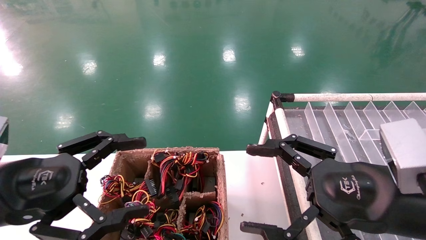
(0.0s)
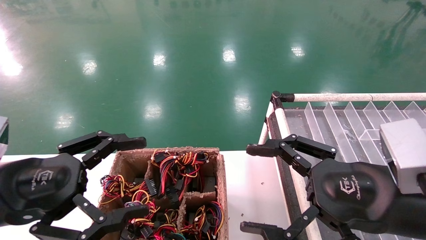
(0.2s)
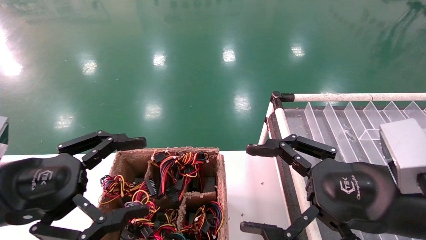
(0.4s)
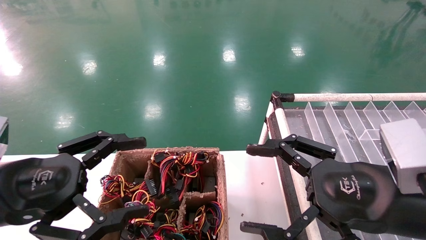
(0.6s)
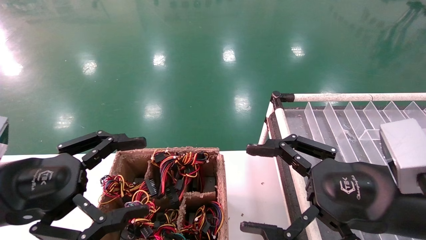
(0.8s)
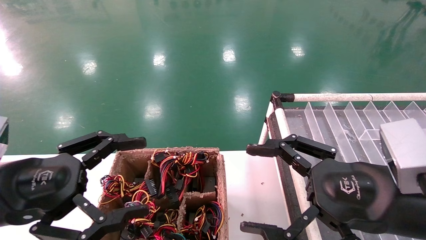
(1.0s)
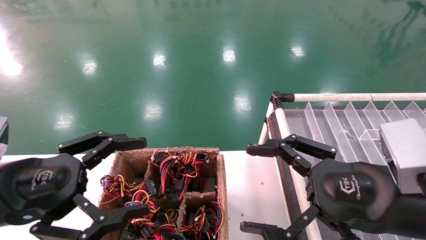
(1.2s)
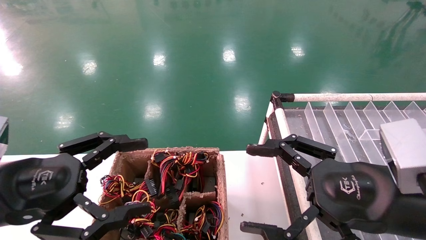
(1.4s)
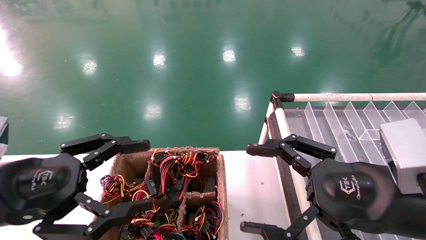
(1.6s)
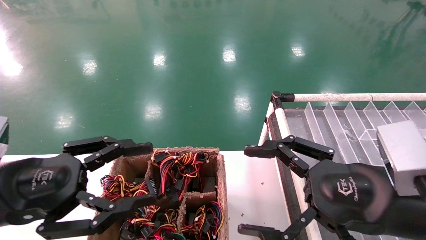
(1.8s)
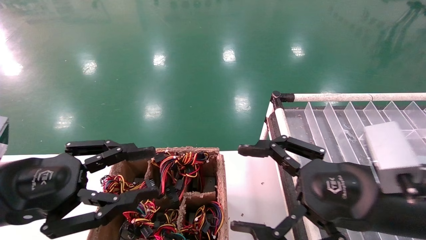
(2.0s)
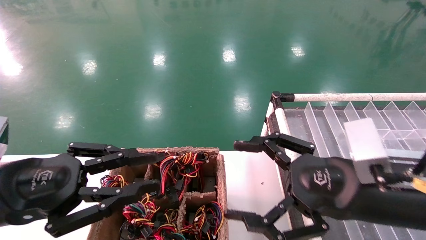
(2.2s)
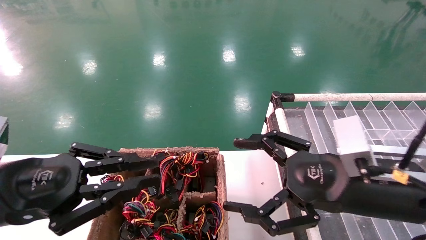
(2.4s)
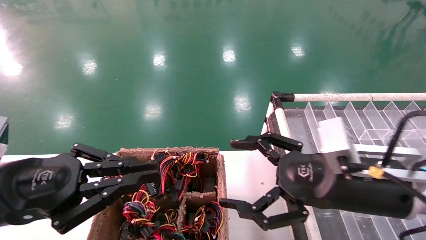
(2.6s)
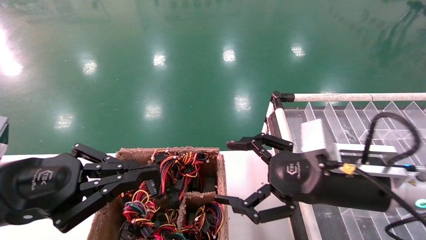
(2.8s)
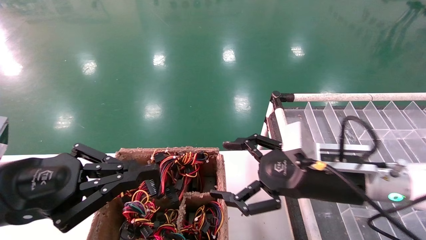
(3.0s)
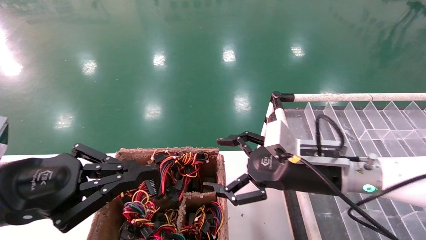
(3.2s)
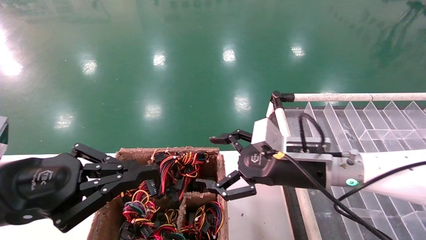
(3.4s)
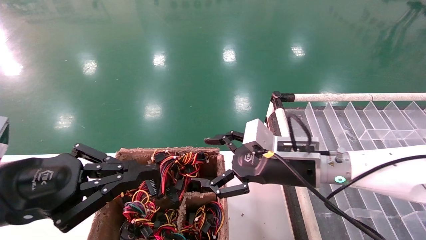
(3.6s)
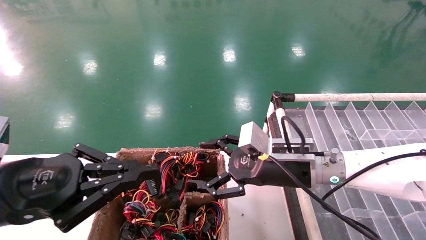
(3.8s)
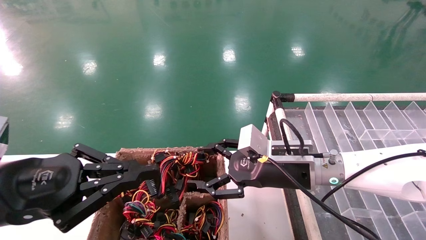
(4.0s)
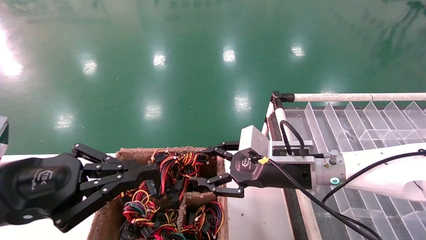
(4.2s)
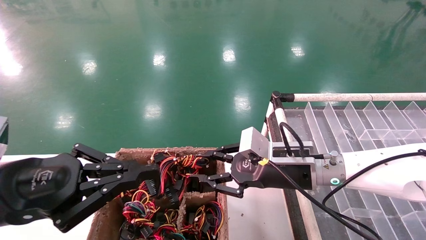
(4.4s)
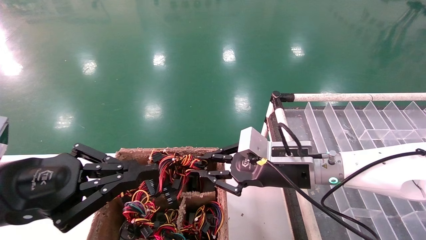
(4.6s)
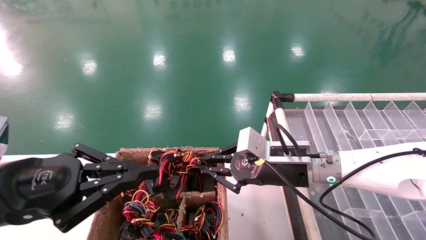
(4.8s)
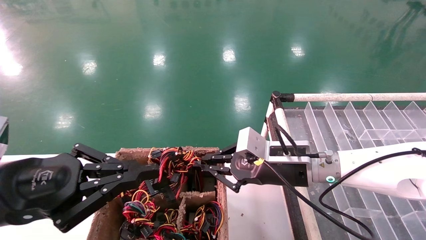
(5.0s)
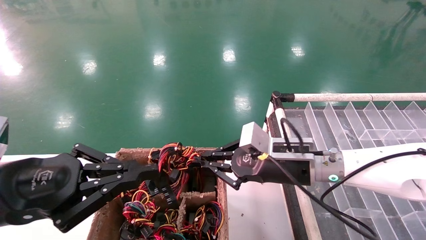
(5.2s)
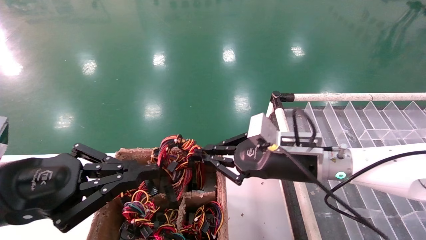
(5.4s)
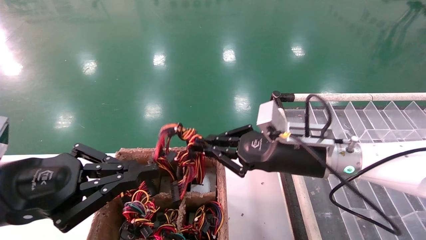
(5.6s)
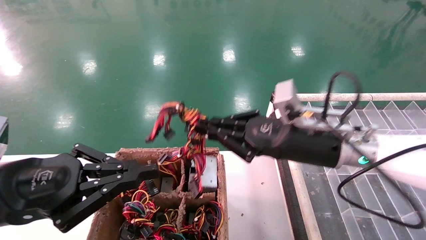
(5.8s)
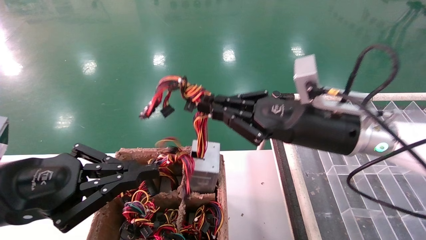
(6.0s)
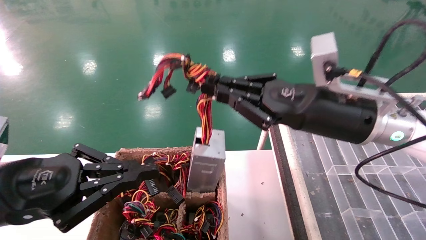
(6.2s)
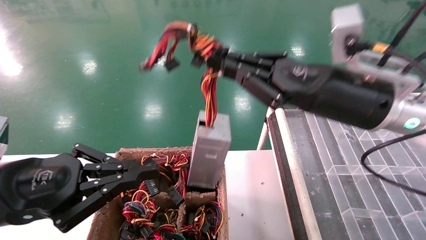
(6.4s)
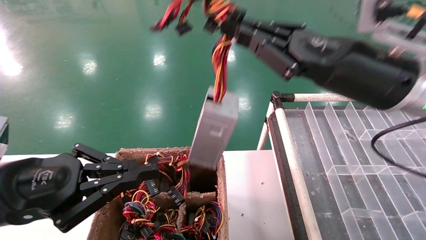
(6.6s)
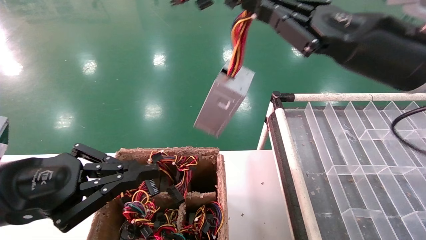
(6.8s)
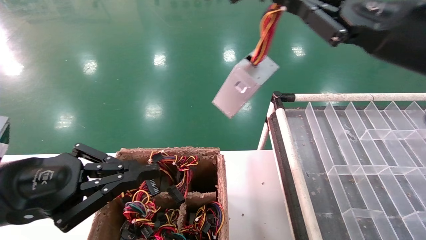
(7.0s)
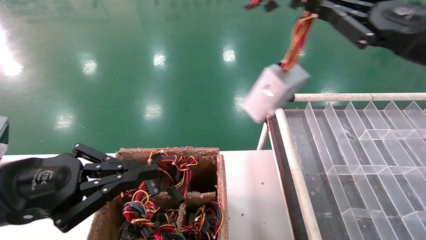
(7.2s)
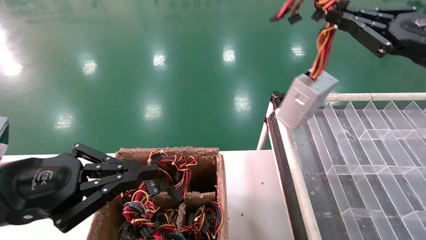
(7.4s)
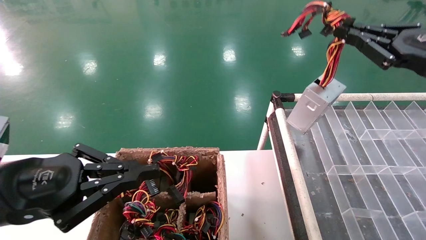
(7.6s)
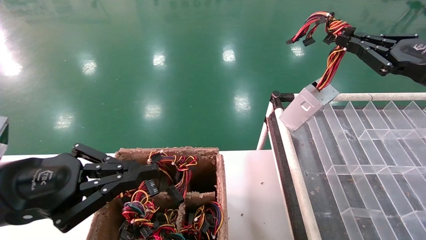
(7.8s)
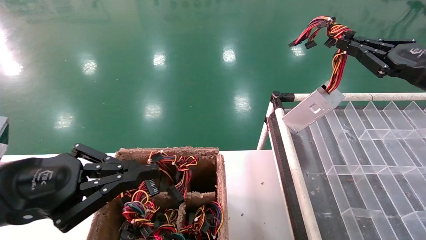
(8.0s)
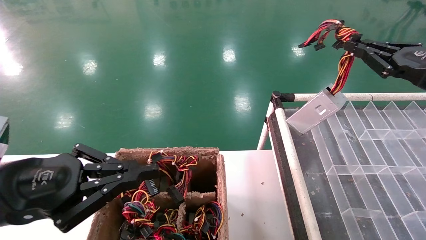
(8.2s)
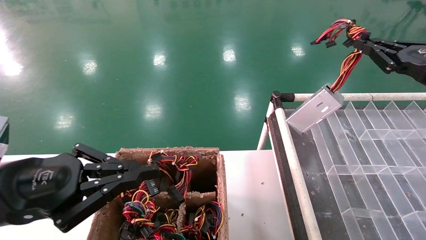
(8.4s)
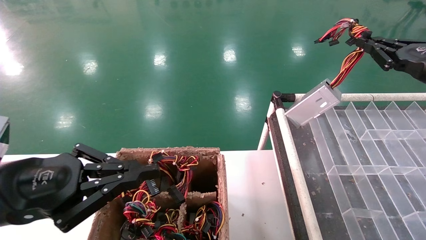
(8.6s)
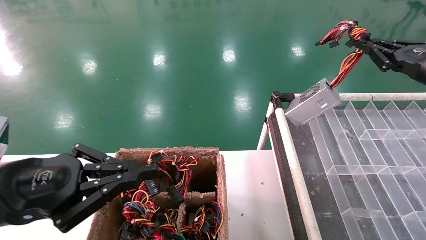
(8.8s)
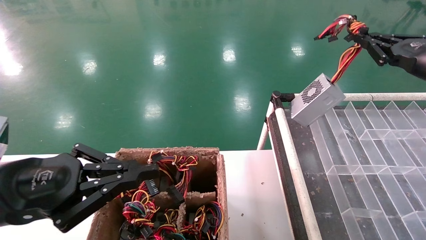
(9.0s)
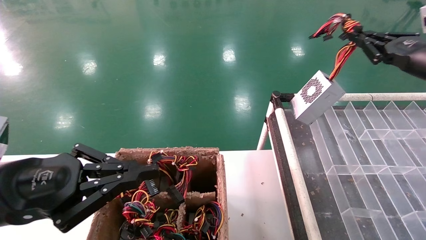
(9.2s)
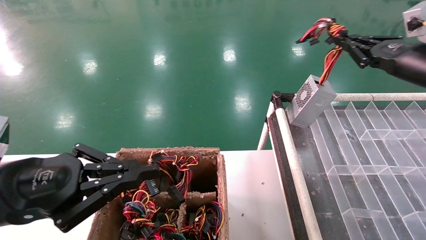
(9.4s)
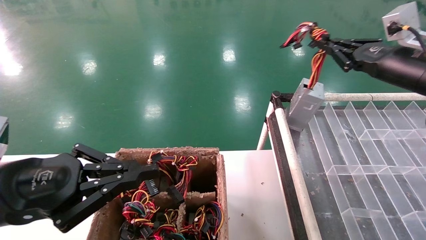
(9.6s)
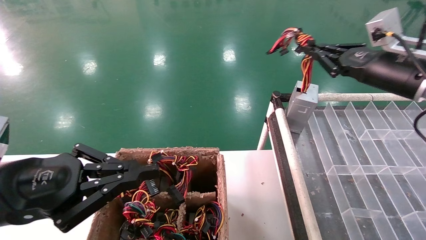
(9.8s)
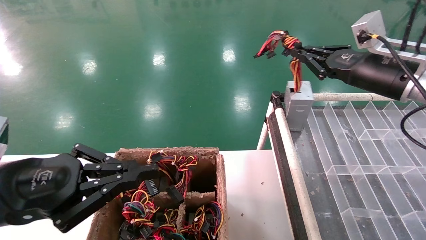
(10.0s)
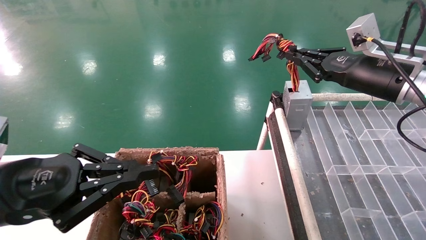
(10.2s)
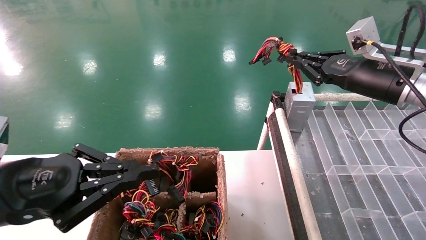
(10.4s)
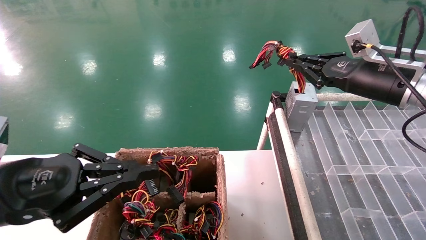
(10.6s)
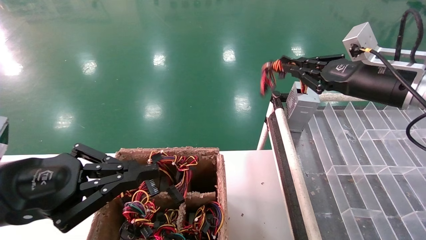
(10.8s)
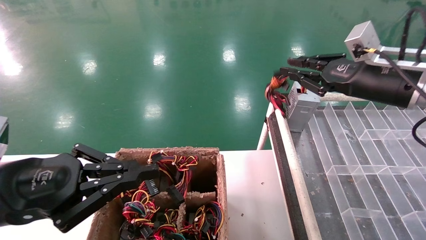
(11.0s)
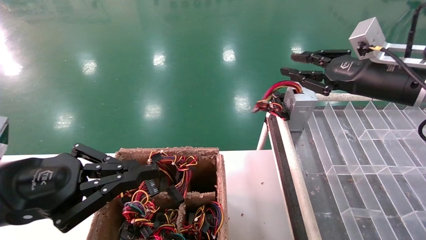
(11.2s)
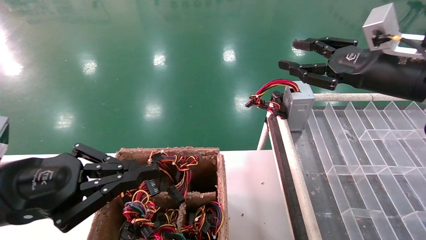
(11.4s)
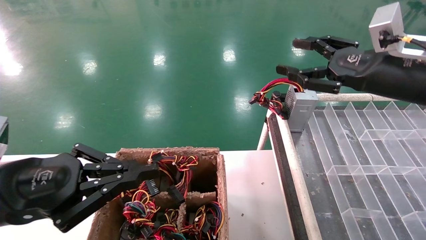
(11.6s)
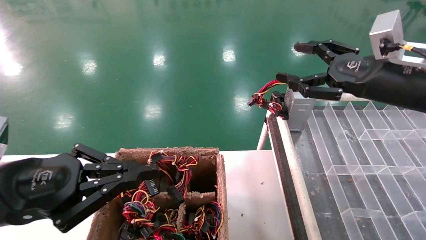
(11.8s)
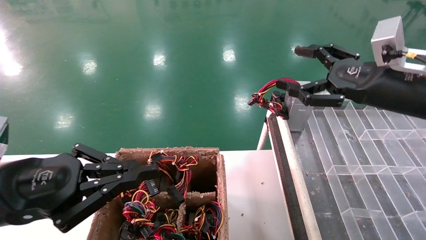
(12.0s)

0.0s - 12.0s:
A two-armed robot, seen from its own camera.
Step, 2.2s - 4.8s: Grab the main unit power supply from the containment box.
Step, 5.0s - 11.2s: Place the main unit power supply in the designated area.
0.0s - 1.6s: Neither gripper changes place.
1.6s - 3.0s: The left gripper closes up. Meanwhile the right gripper travels forward by roughly 10 cm.
3.0s - 4.4s: The right gripper travels forward by some 5 cm, and closes its fingers.
4.4s - 6.0s: The right gripper shifts about 10 cm upward, and closes up.
6.0s - 7.6s: The right gripper is displaced to the right and upward by about 20 cm.
7.6s - 9.0s: The right gripper moves forward and to the right, roughly 10 cm.
9.0s - 10.4s: The right gripper goes roughly 10 cm to the left.
10.4s - 12.0s: The right gripper moves backward, some 5 cm, and opens its fingers.

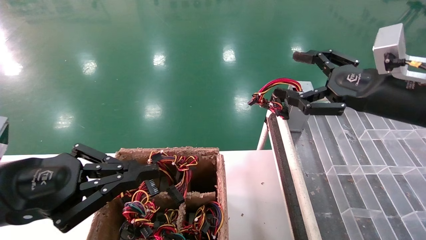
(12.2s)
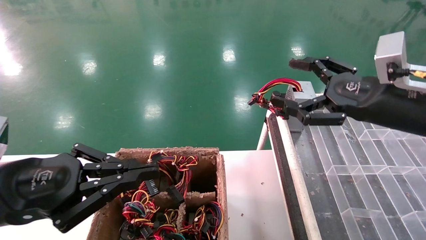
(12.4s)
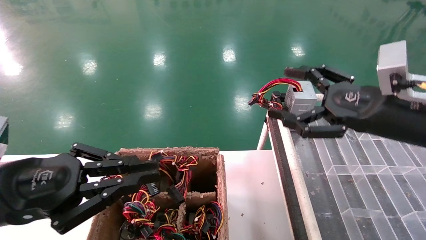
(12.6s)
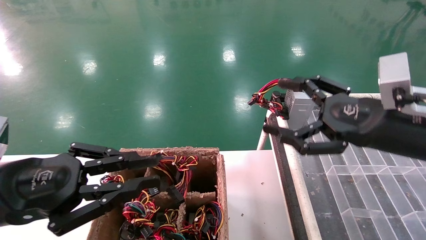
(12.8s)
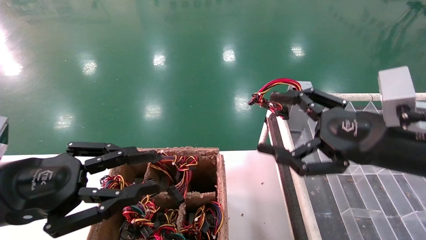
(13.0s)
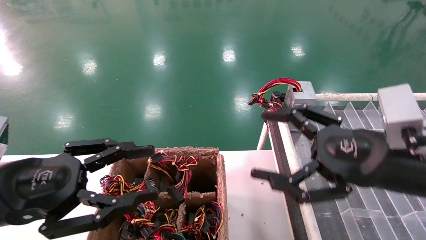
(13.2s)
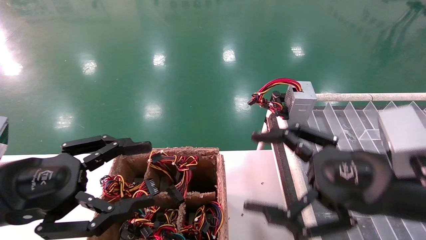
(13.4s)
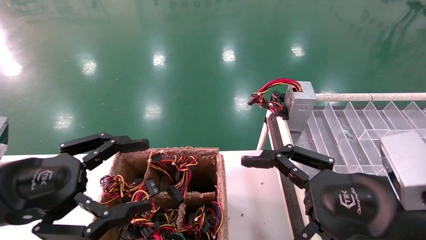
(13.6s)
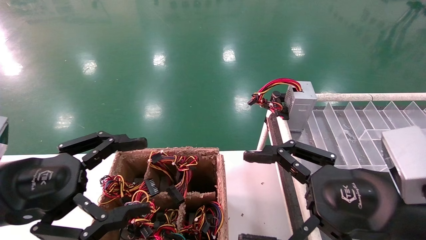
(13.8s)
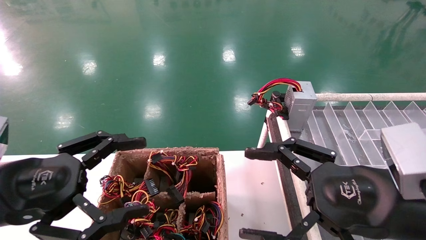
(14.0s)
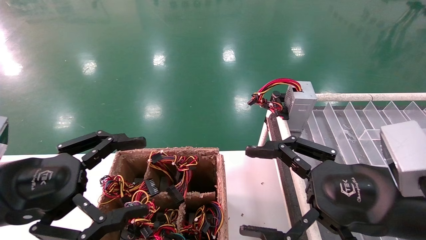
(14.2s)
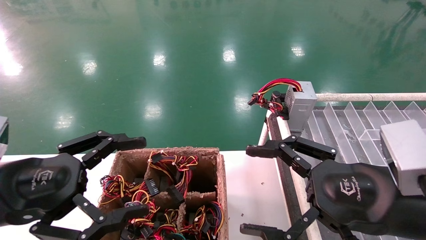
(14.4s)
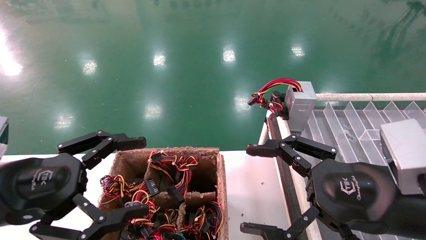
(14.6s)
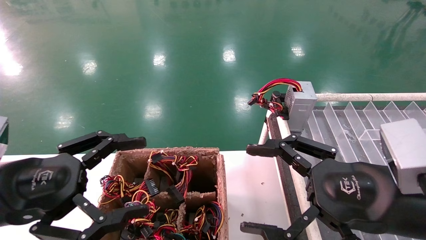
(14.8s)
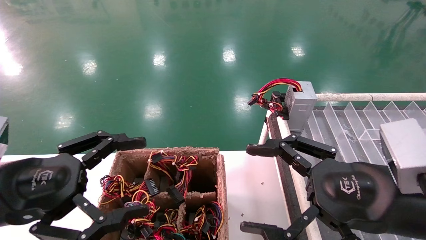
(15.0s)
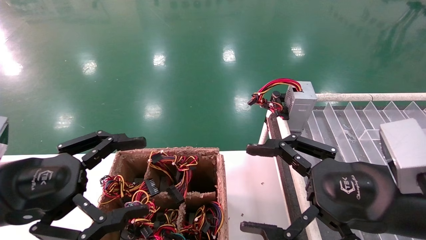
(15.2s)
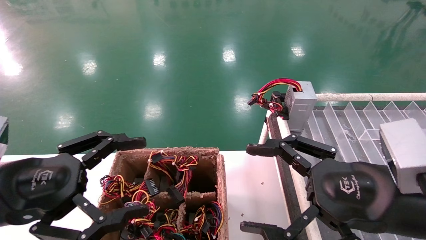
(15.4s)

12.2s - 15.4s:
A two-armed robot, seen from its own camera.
12.2s - 13.8s: The right gripper travels backward, downward and to the left by some 15 cm. The left gripper opens.
13.8s - 15.4s: The two grippers keep their place.

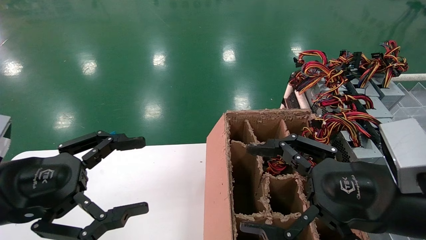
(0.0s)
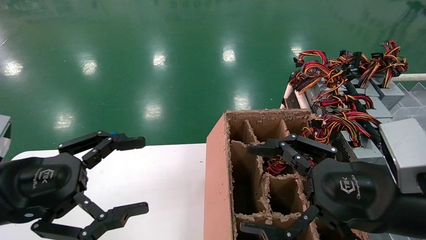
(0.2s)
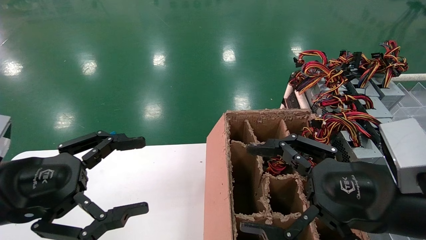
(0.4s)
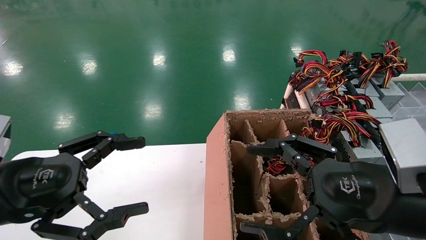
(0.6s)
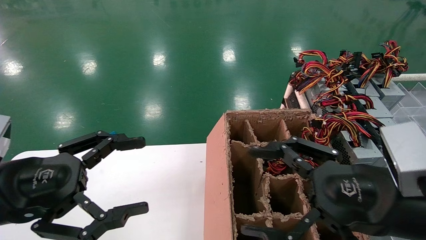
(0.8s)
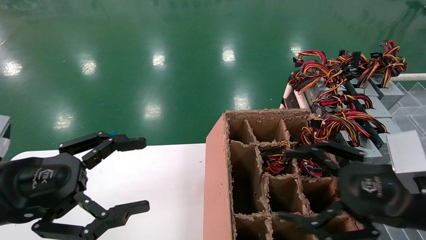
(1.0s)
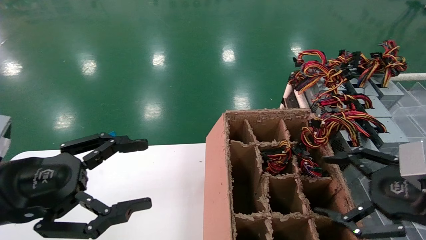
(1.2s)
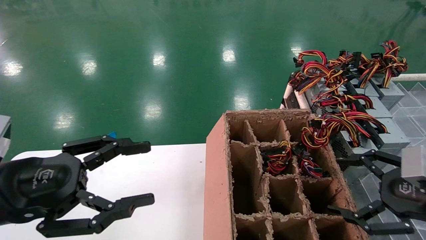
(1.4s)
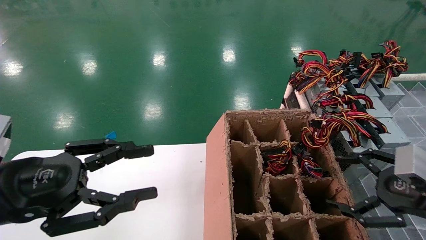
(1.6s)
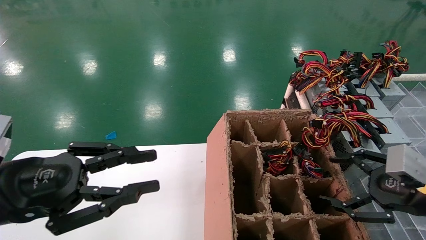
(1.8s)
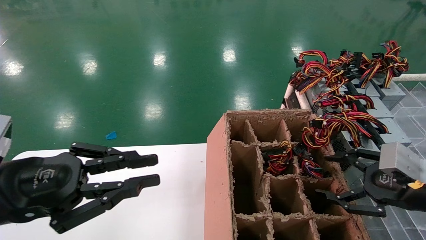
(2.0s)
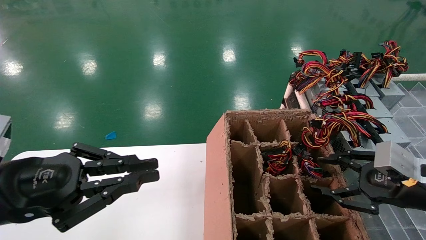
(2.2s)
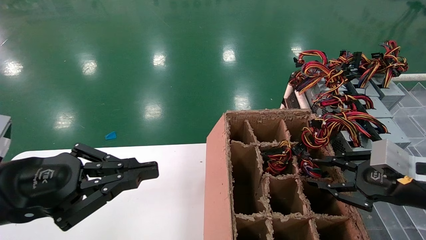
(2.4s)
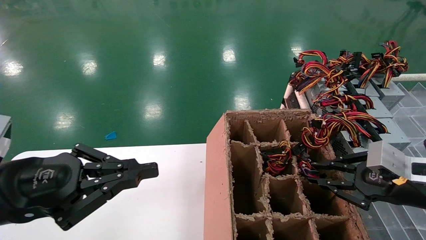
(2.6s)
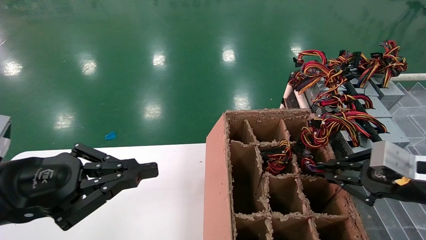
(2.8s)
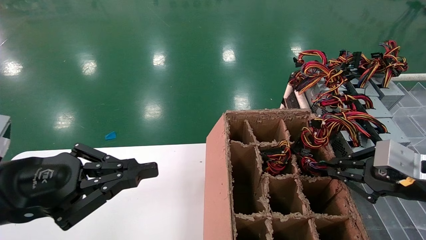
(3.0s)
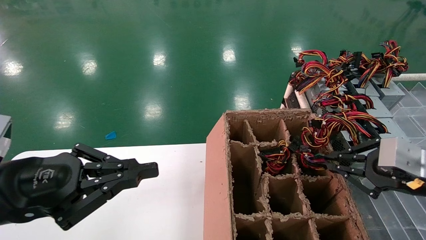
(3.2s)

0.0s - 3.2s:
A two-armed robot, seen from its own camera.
0.0s - 1.6s: The right gripper is displaced to the right by some 15 cm.
1.6s - 3.2s: The left gripper closes, while the right gripper closes its fingers.
